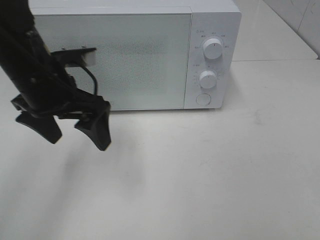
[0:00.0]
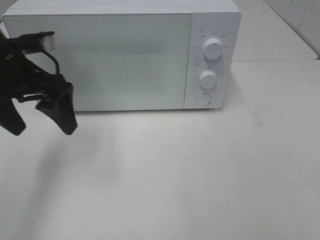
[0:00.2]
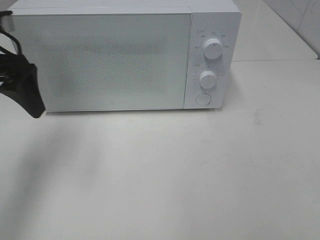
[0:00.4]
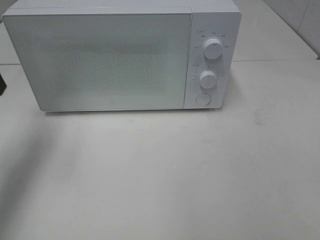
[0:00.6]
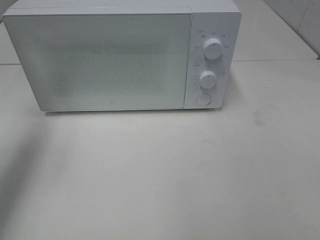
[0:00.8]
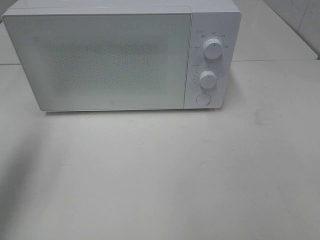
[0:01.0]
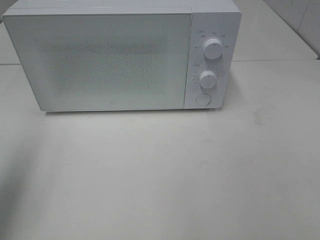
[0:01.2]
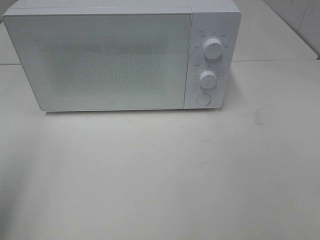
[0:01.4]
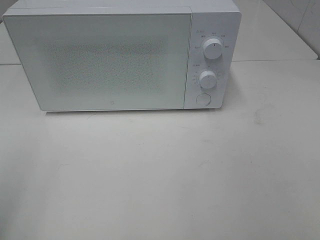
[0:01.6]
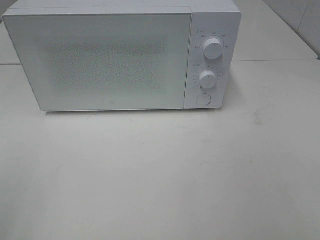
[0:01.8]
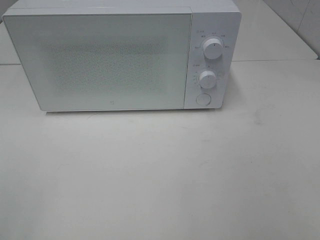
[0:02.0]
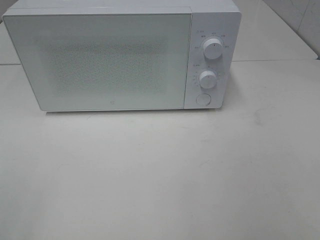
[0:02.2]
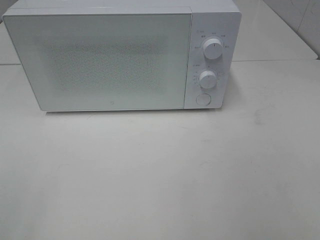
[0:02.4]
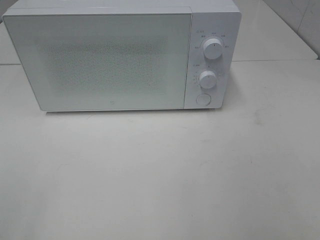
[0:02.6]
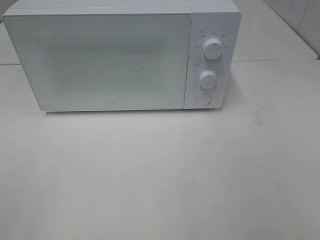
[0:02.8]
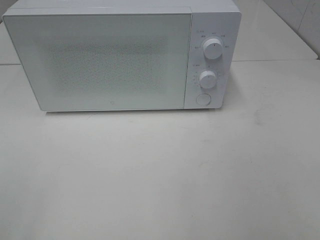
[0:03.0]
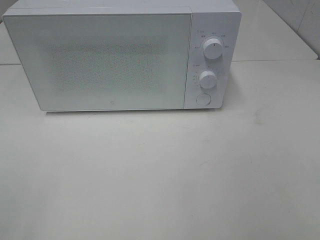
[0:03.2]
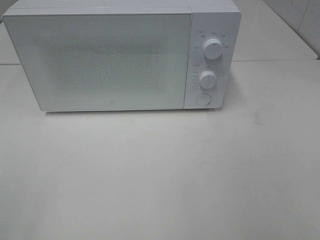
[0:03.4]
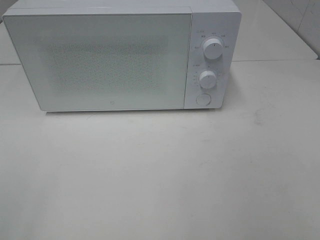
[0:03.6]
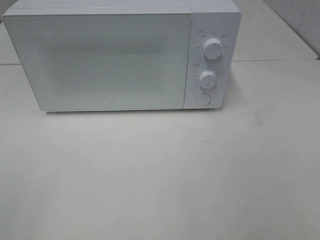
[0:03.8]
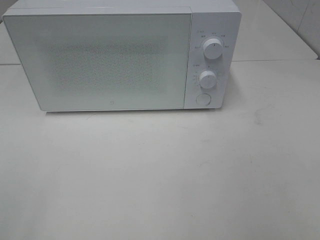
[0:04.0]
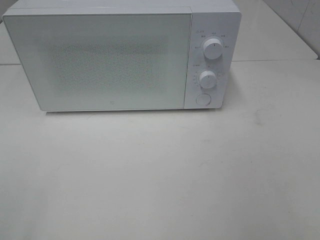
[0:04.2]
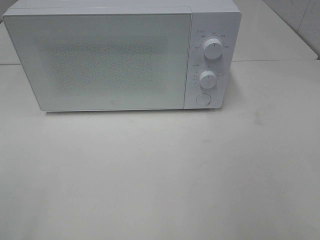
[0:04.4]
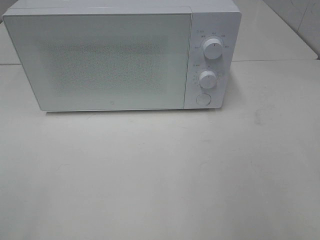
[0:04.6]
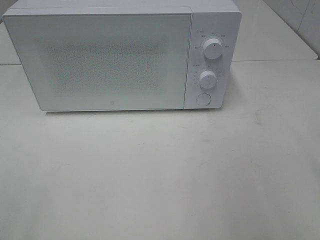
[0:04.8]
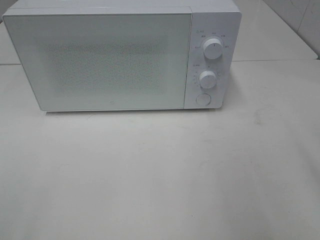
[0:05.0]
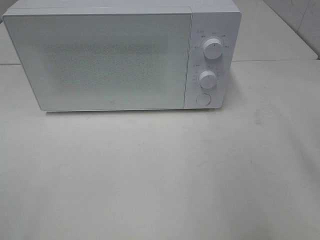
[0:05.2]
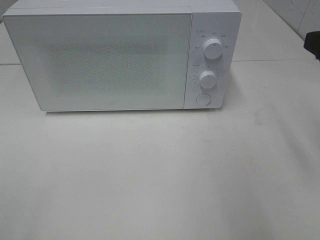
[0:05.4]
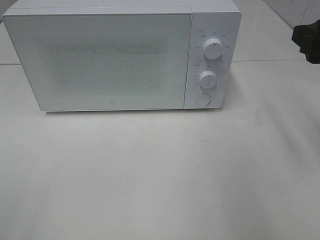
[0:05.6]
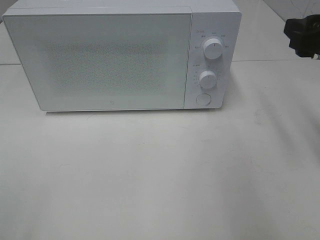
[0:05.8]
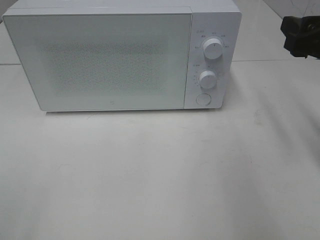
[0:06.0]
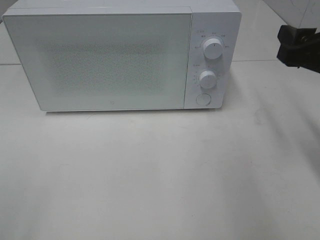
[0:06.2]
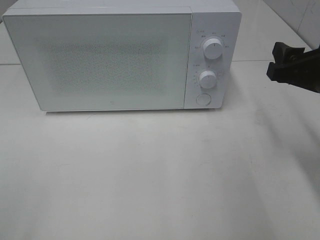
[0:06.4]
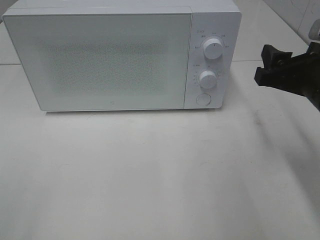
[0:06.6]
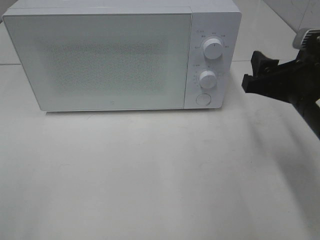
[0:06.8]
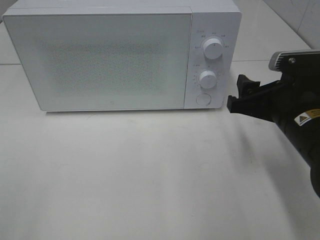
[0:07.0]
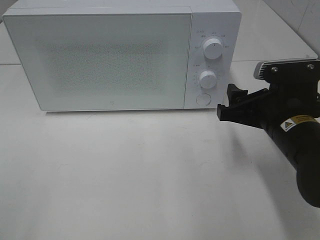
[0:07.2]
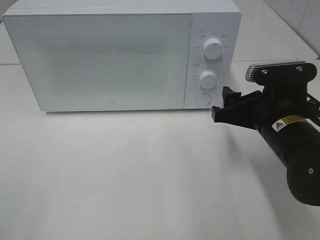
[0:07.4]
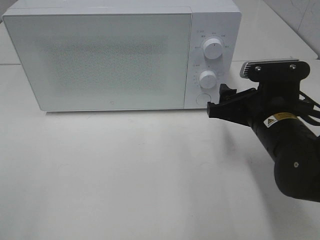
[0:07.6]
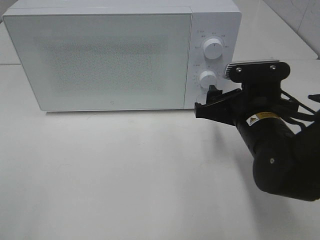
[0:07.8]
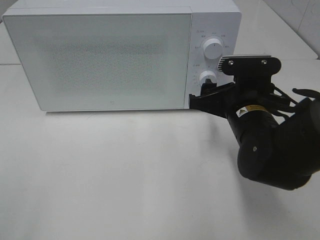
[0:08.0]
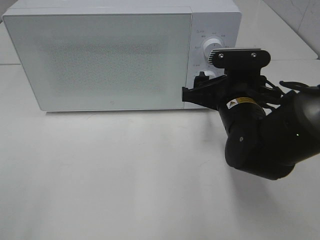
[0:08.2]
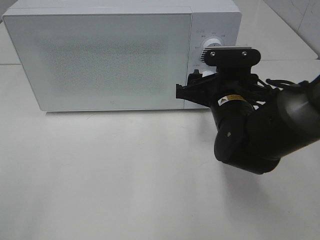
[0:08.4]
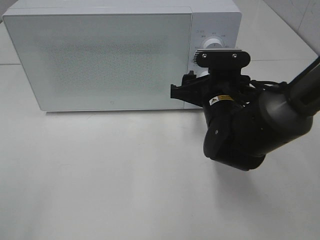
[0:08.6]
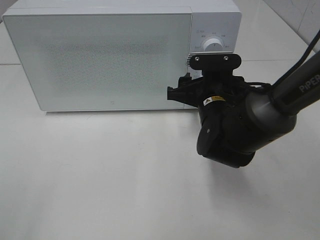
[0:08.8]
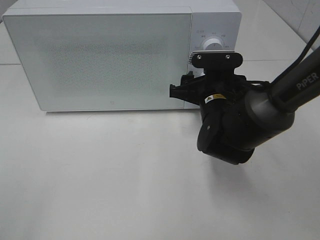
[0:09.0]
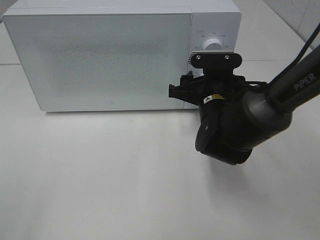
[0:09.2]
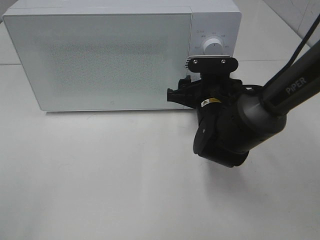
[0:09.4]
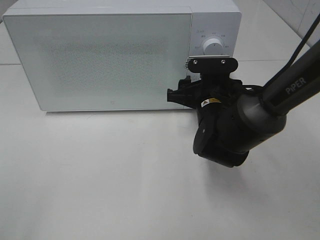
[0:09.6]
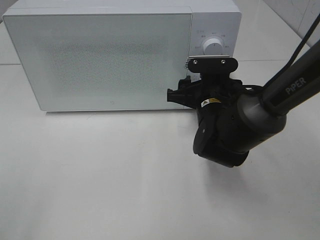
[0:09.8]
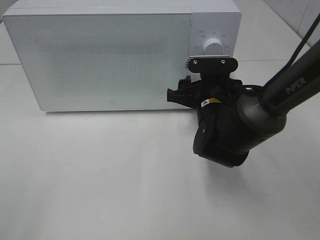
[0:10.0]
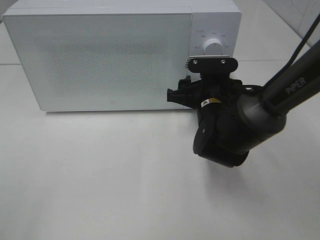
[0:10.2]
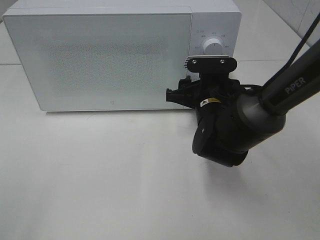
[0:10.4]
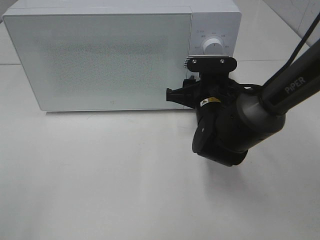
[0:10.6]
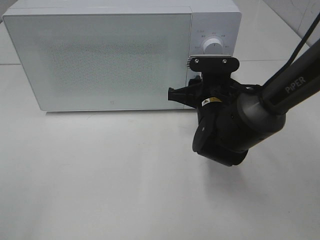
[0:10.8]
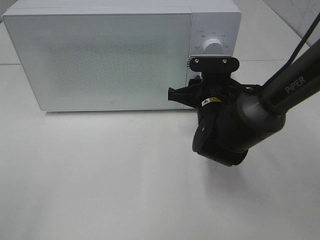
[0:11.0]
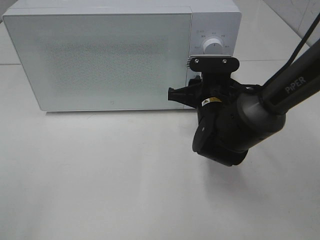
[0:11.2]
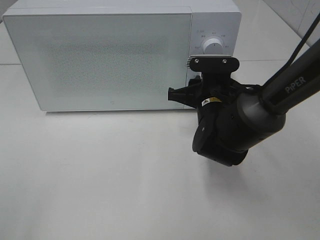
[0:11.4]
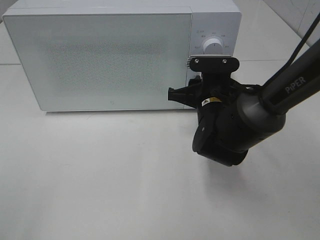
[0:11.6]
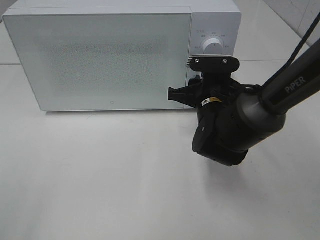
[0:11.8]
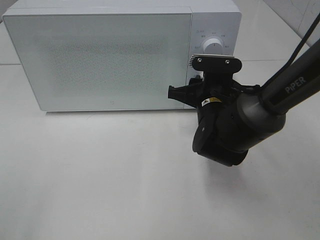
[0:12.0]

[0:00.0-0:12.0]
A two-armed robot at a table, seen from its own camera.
Task of the whole recording: Heat the burger.
0:00.0 to 0:01.6: The left gripper travels backward and to the left by roughly 25 cm.
0:04.4 to 0:06.0: The right gripper travels forward by some 20 cm.
0:06.0 to 0:07.6: The right gripper heads downward and to the left, covering about 15 cm.
0:07.6 to 0:09.0: The right gripper shifts roughly 10 cm forward and to the left.
0:09.0 to 0:10.4: Both grippers stay about where they are.
0:10.4 to 0:12.0: The grippers make only small movements.

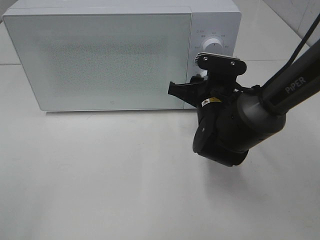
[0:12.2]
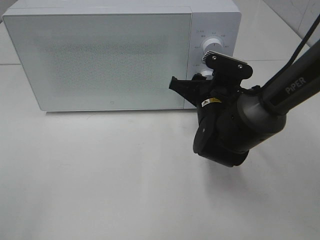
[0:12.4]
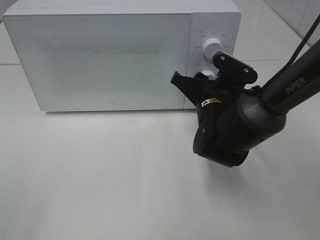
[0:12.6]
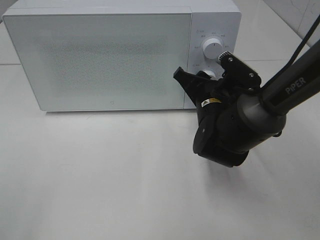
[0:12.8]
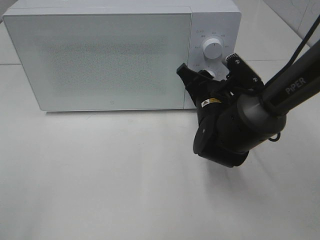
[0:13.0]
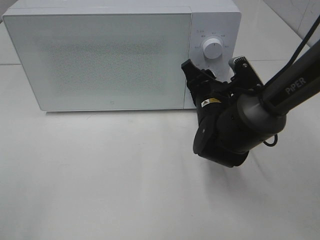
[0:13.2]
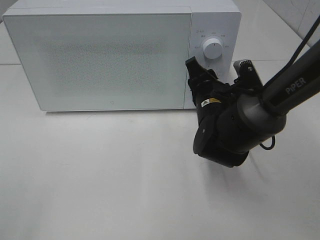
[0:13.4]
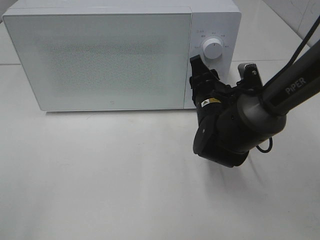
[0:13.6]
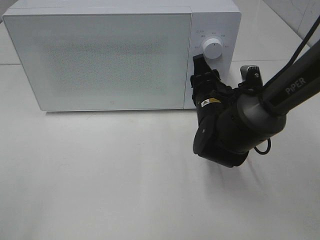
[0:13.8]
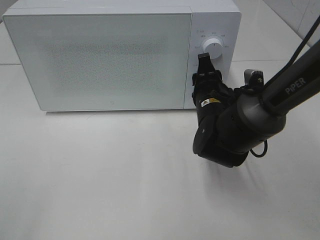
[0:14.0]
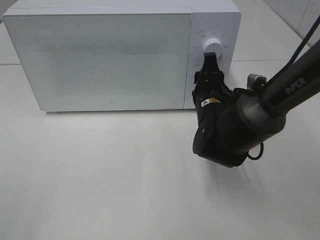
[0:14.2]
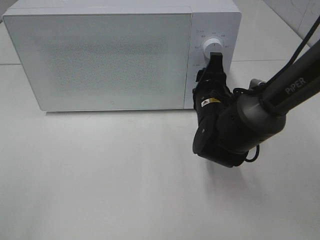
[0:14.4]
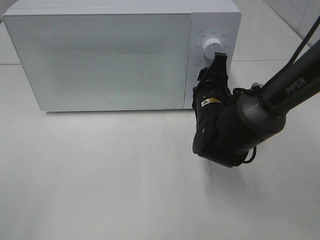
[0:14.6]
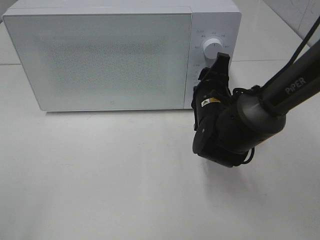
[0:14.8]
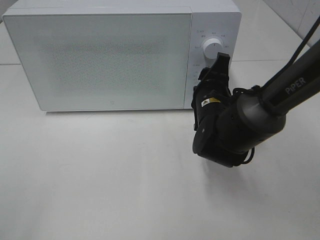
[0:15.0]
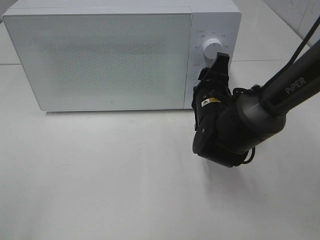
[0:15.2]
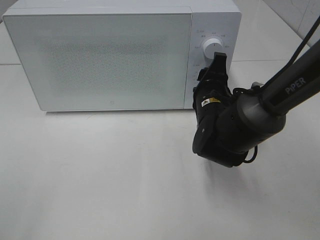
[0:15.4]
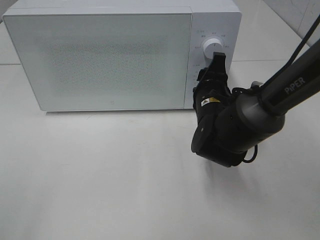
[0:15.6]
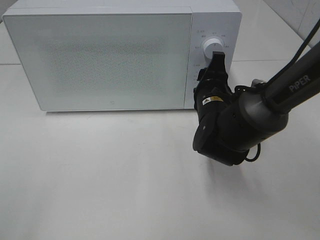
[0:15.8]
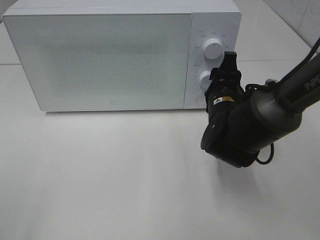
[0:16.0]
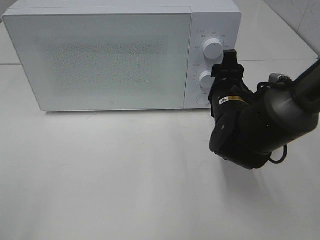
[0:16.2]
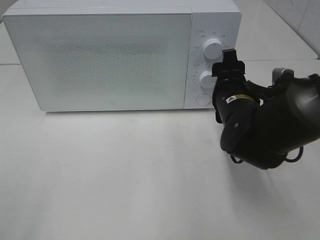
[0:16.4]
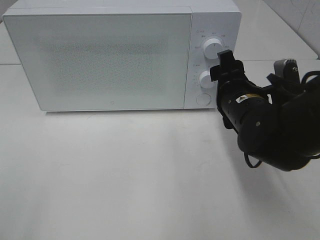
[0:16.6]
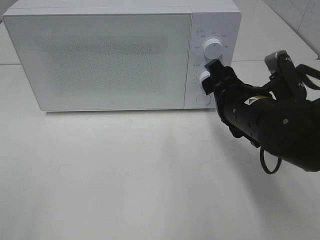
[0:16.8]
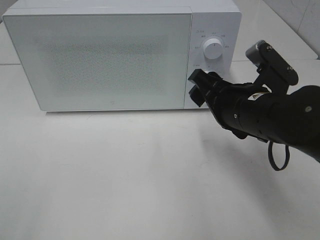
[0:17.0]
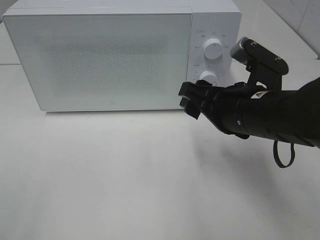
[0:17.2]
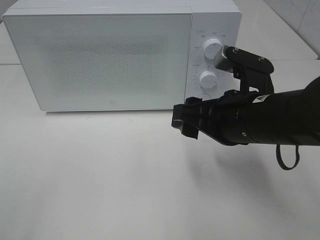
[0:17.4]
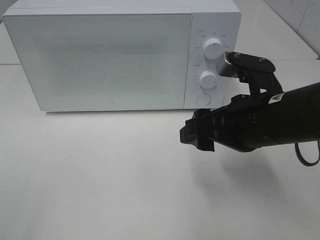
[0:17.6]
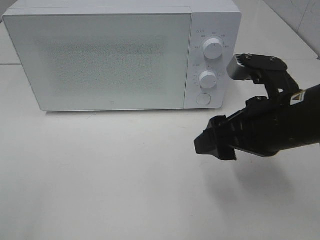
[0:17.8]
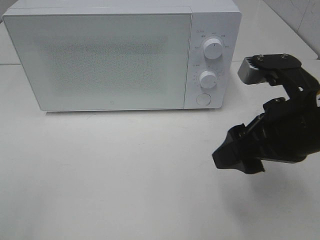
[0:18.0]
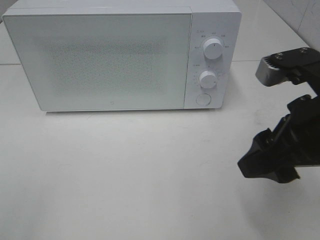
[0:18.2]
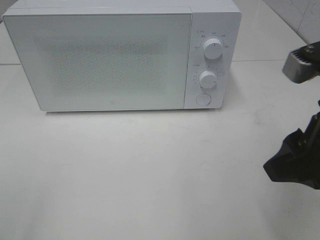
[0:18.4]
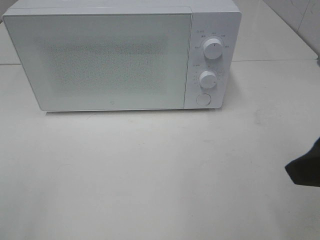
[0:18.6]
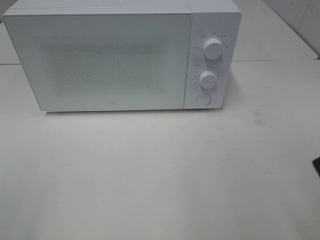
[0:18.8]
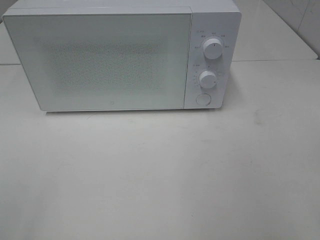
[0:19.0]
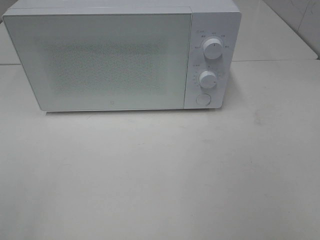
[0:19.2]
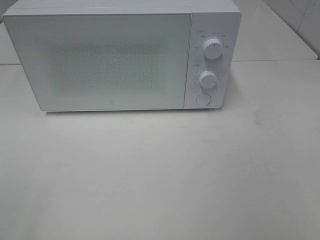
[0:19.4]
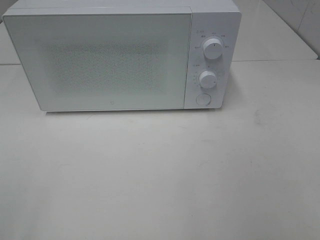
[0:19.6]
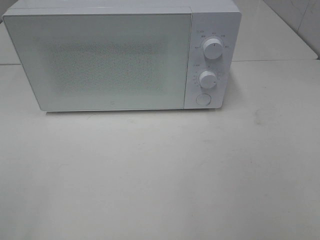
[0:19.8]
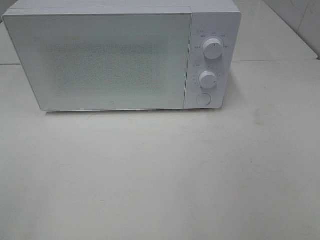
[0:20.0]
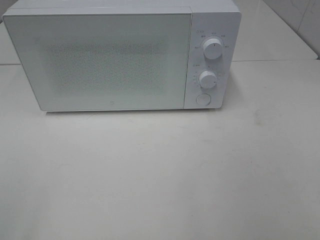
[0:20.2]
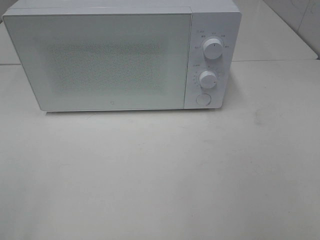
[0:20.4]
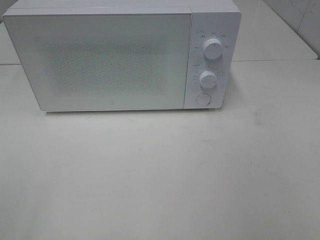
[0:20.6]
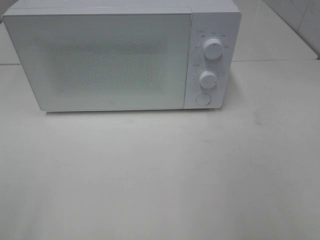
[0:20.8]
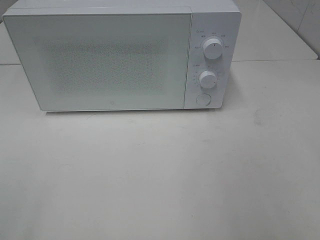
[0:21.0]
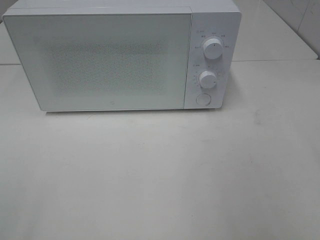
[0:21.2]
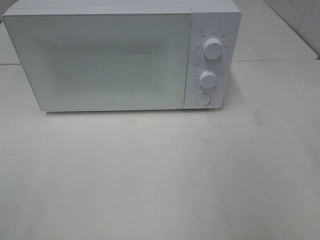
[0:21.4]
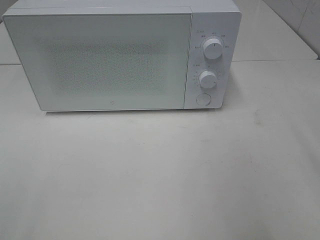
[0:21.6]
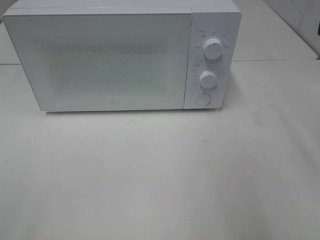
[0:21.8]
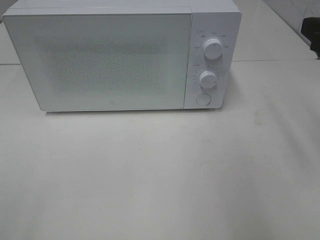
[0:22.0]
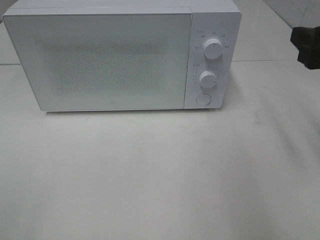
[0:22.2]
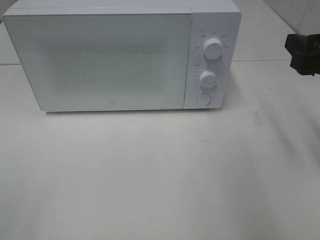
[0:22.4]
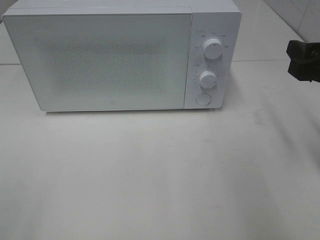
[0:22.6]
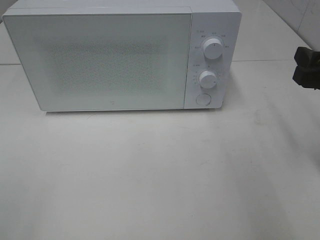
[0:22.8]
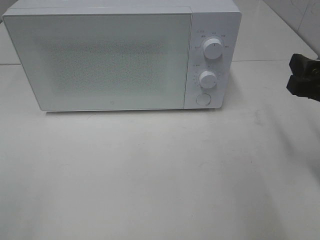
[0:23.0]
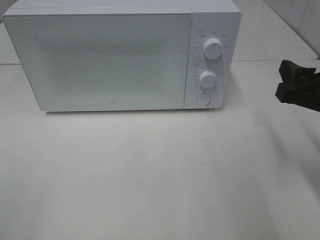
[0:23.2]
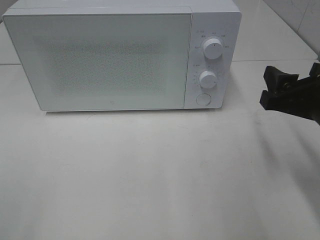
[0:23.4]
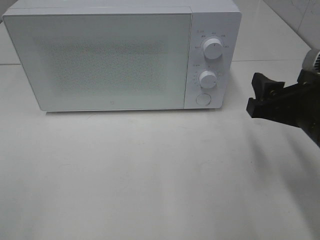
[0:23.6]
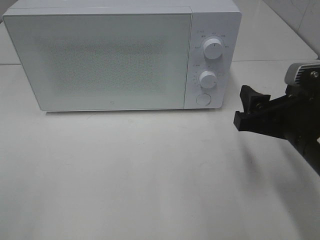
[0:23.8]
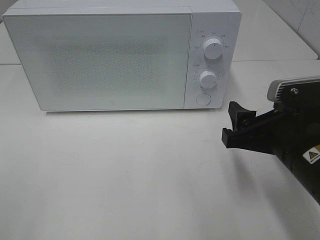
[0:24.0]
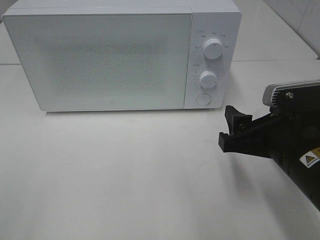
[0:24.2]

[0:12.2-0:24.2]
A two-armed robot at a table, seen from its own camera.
Task of the whole recording: Heat the burger.
Step, 0:12.2 to 0:16.0: Right hand: twist timer button.
0:15.2 to 0:16.6: The right gripper moves backward, approximately 5 cm.
0:16.6 to 0:18.2: The right gripper is displaced backward and upward by some 15 cm.
0:18.2 to 0:19.8: The right gripper travels backward and to the right by approximately 20 cm.
0:21.2 to 0:22.6: The right gripper is displaced forward and downward by roughly 15 cm.
0:22.6 to 0:24.2: The right gripper moves to the left, downward and backward, approximately 15 cm.
